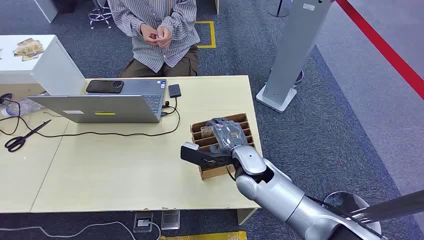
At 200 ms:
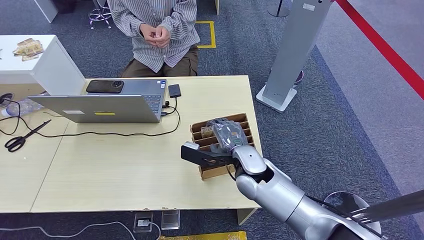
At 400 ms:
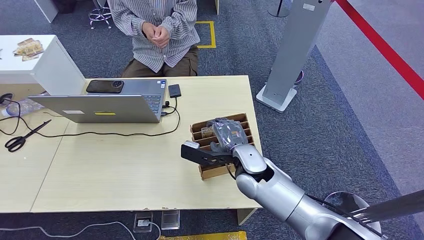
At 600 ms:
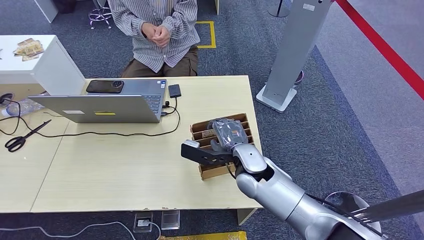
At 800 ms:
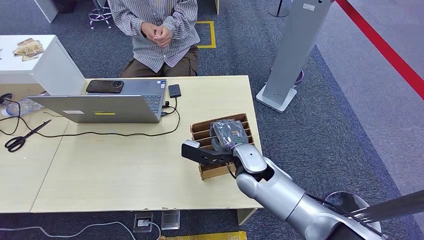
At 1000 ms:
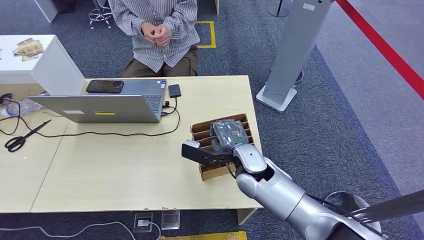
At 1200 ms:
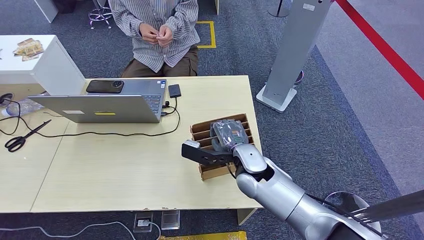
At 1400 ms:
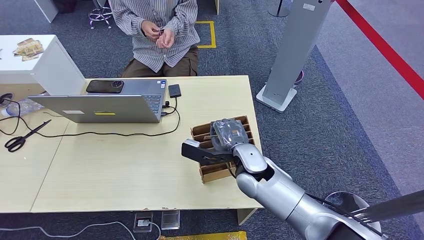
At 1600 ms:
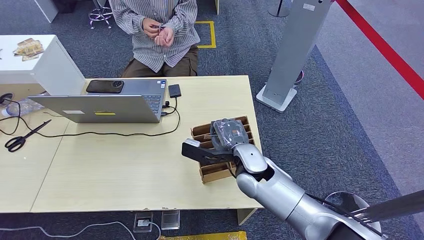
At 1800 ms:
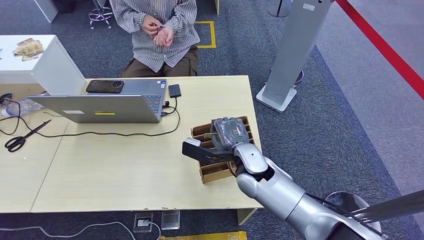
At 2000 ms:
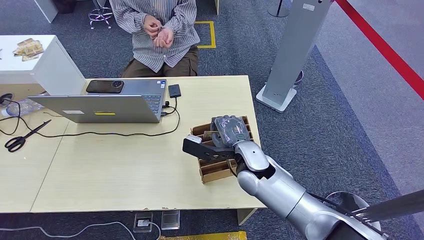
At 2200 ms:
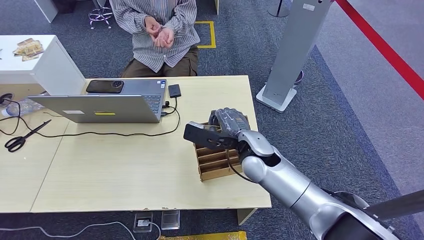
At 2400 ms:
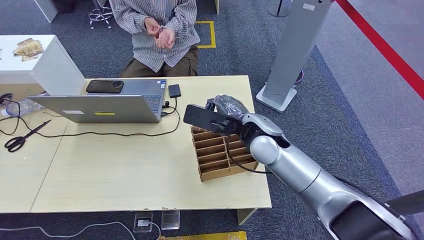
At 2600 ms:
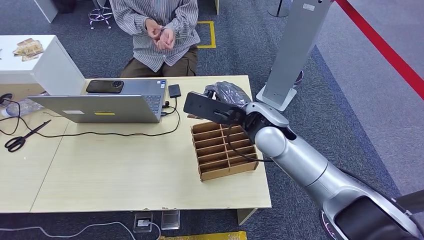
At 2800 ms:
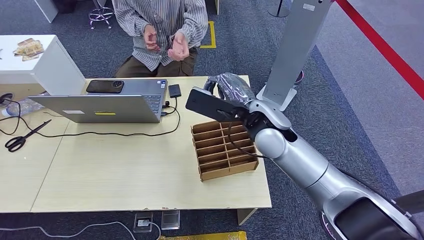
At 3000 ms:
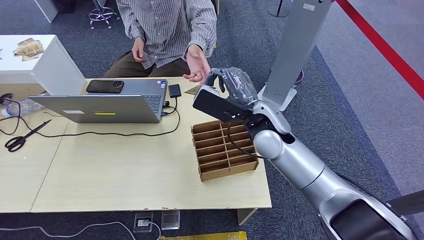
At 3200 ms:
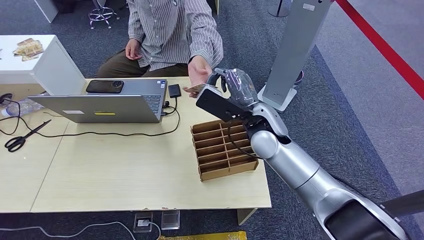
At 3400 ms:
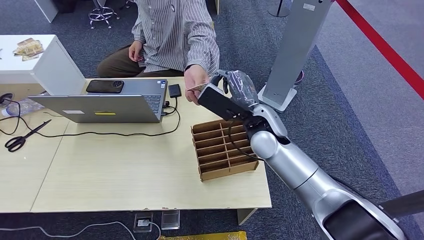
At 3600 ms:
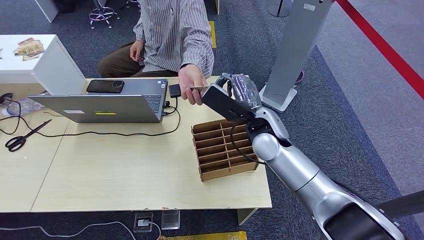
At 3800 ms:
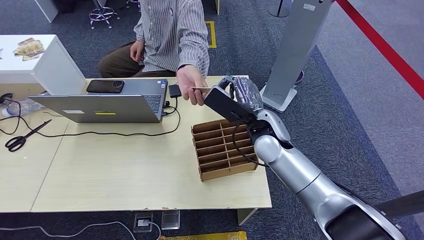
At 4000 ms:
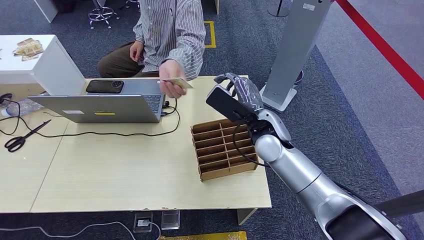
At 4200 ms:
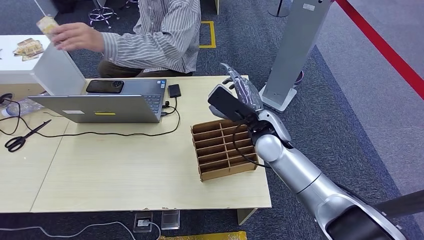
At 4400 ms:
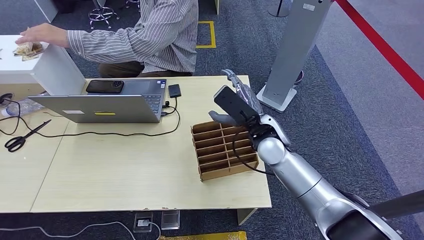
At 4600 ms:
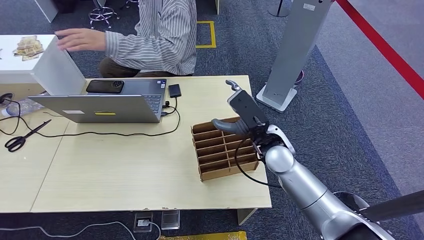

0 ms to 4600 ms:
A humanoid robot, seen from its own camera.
Step, 0 ms to 2400 ms: Pick up the room card from the card holder.
Step, 3400 ms to 4600 ms: Hand the room card to the target.
3000 ms to 4600 ms: The right hand travels backward and to the right by some 10 cm.

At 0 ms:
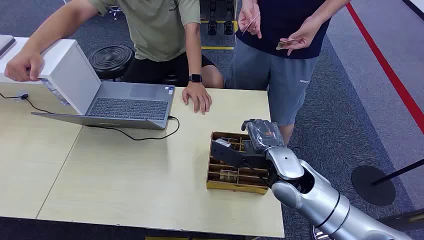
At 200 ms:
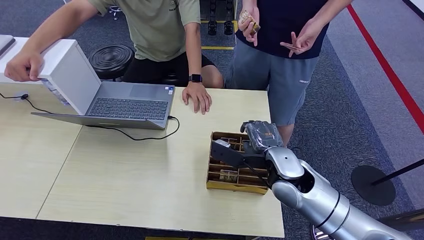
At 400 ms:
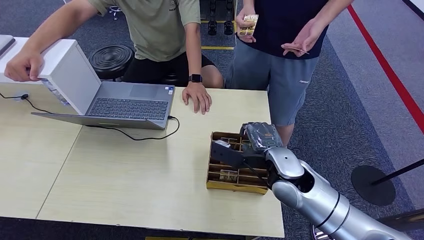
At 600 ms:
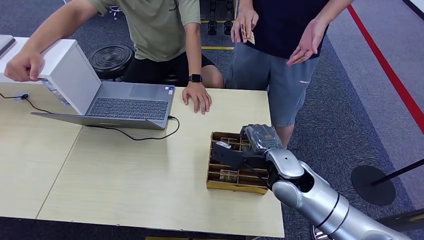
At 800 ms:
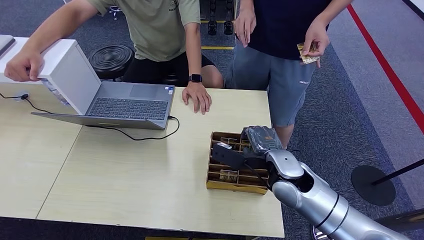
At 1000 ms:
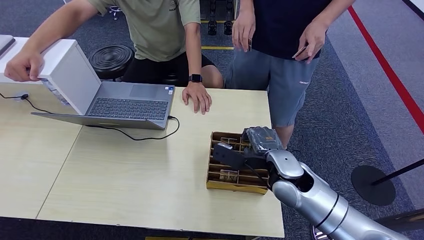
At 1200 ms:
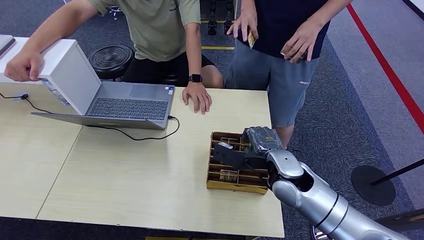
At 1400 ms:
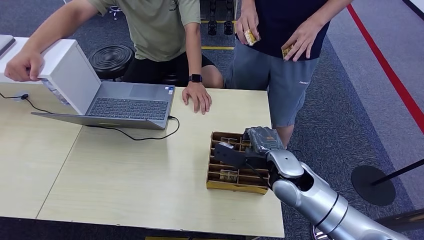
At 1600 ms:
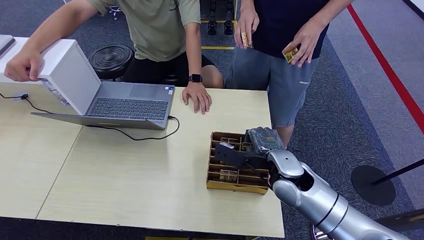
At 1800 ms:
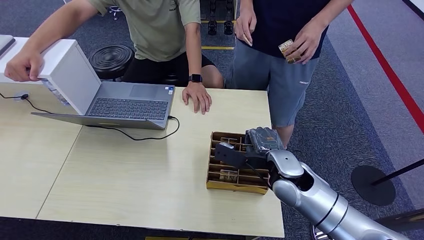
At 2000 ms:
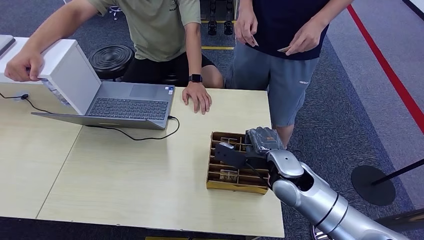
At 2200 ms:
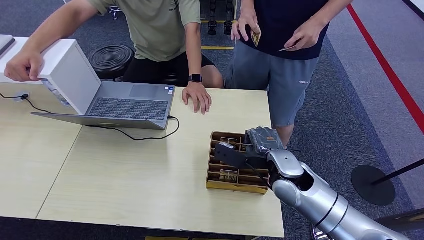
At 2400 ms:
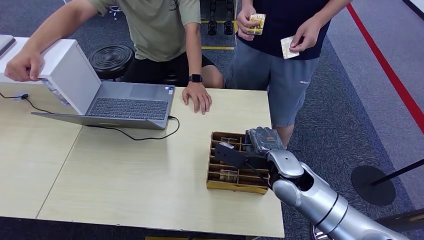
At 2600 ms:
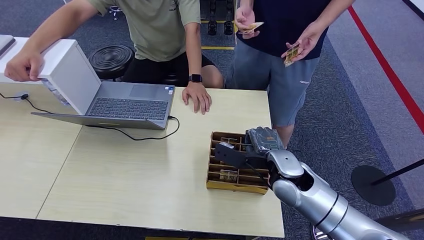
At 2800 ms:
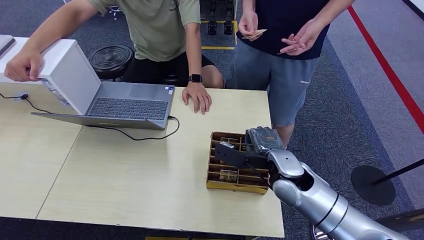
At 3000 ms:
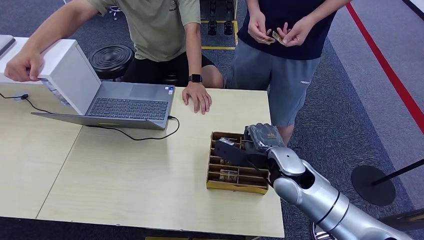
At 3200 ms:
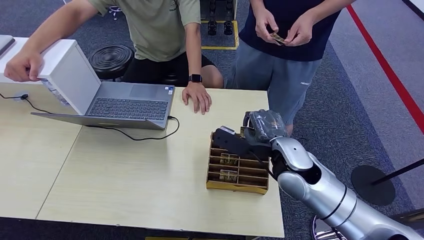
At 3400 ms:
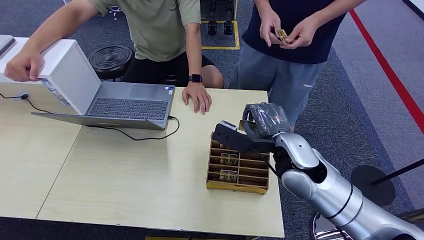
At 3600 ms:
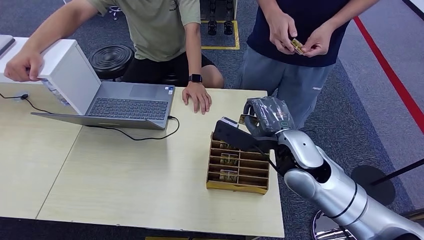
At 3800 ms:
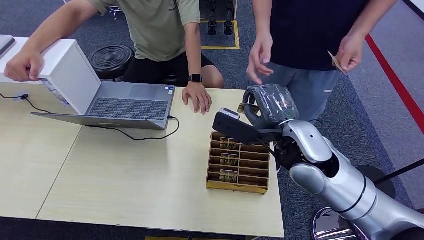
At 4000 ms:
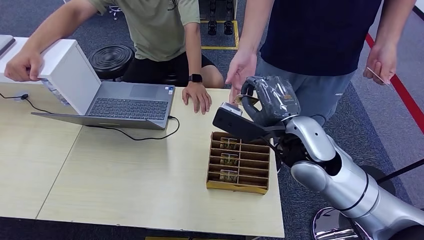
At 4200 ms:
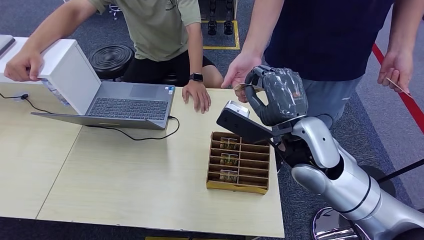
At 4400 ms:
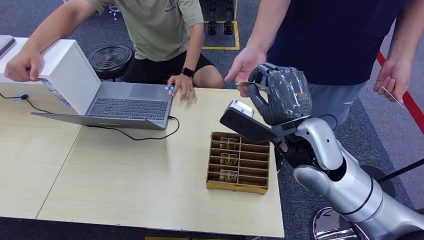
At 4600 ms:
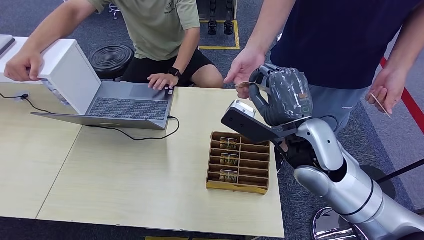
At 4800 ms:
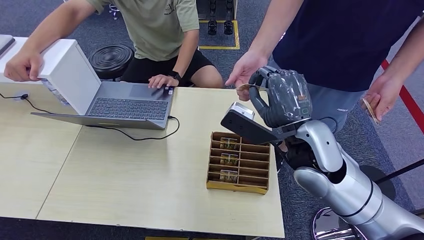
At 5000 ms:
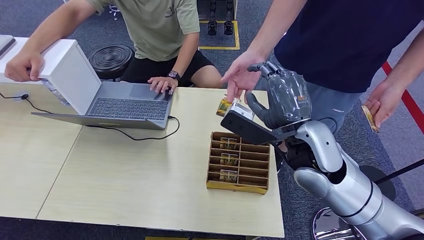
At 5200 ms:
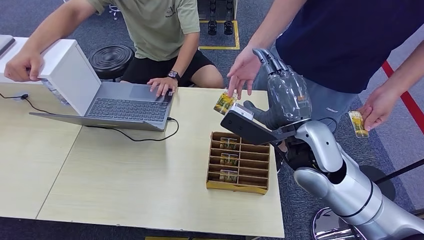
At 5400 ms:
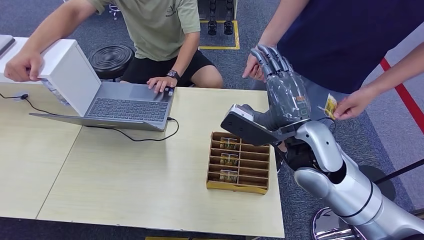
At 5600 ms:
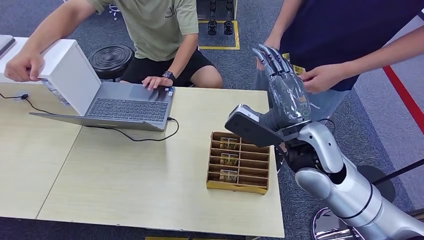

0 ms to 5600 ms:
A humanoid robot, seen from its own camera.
Step, 0 ms to 3200 ms: Pick up the room card from the card holder.
Step, 3400 ms to 5600 ms: Hand the room card to the target.
1400 ms to 2800 ms: The hands stay close to where they were, moving slightly.

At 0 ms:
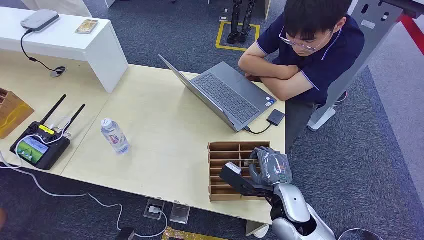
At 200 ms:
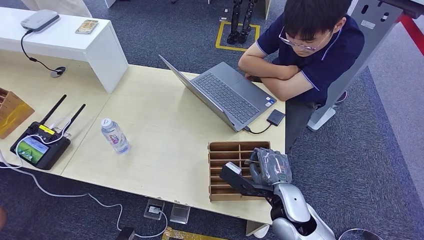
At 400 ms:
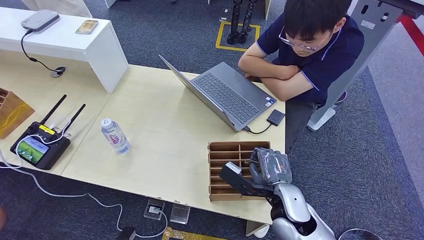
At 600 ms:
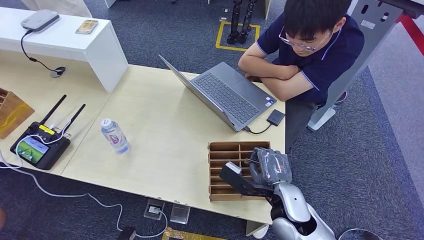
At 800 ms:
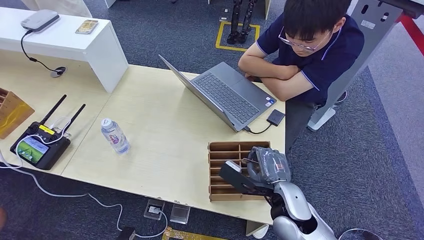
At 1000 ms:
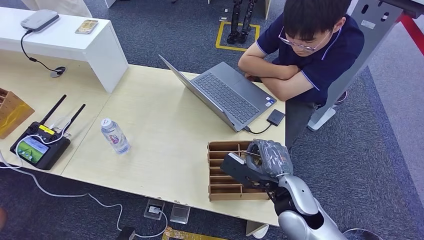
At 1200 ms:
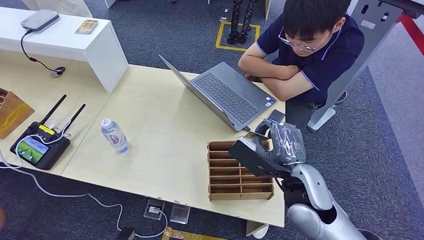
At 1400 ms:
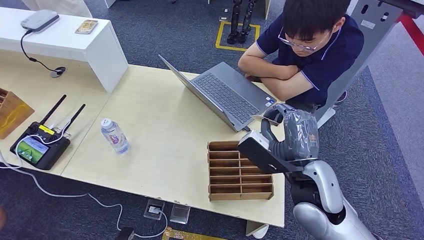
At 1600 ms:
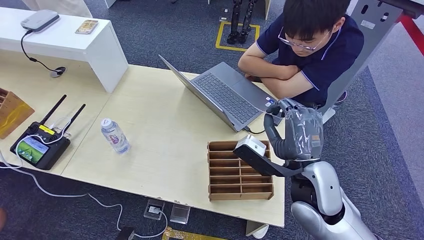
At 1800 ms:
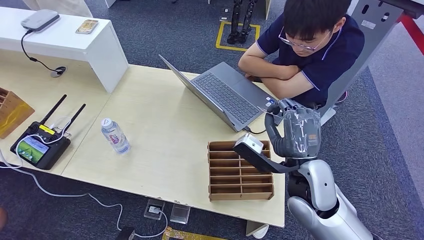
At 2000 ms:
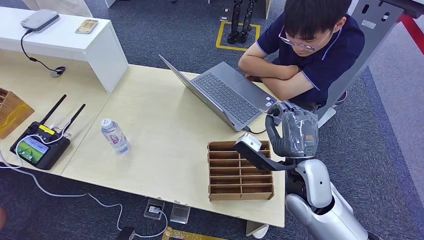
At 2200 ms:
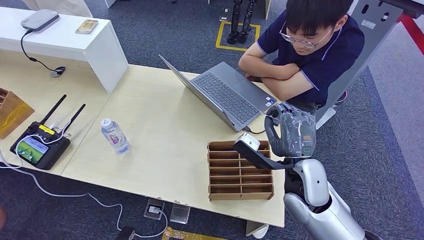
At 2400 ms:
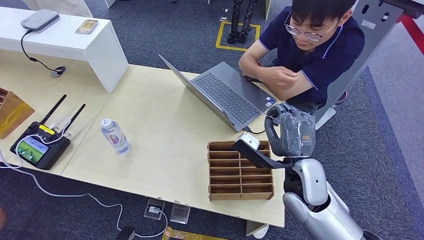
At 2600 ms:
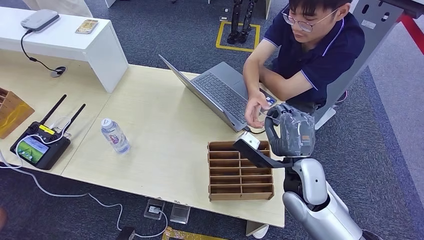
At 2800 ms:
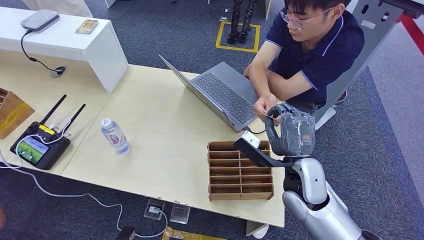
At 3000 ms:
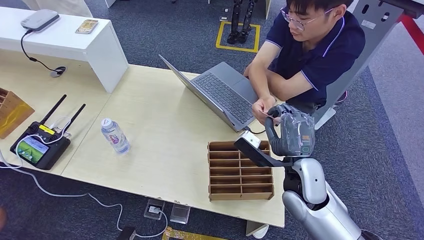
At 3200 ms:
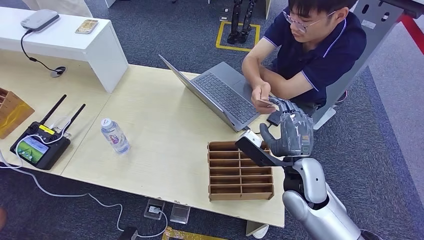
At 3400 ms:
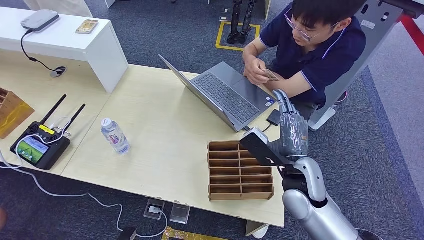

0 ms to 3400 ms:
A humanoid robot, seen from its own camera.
Step, 0 ms to 1200 ms: Pick up the room card from the card holder.
Step, 1600 ms to 3400 ms: Hand the room card to the target.

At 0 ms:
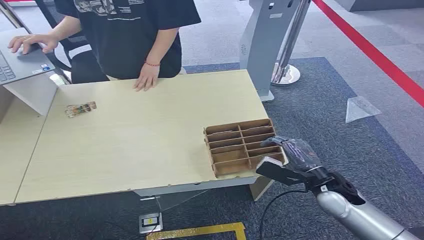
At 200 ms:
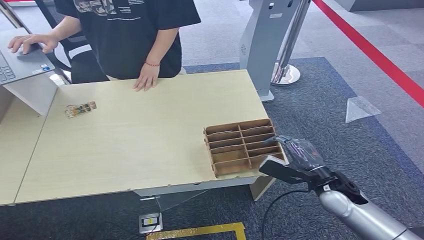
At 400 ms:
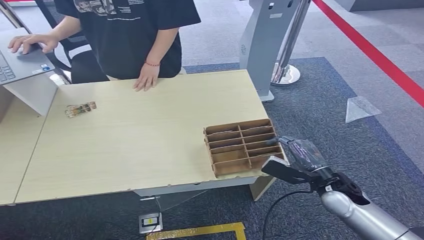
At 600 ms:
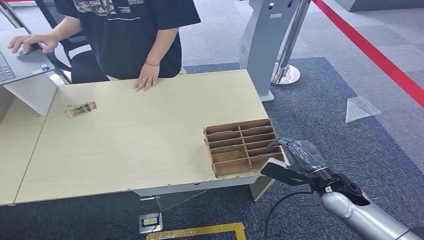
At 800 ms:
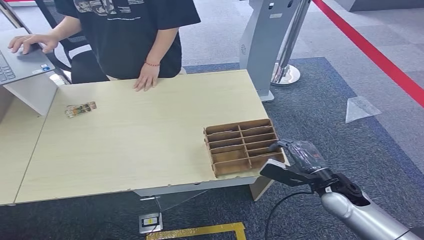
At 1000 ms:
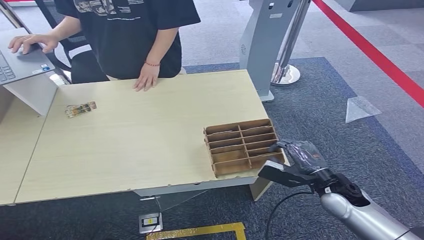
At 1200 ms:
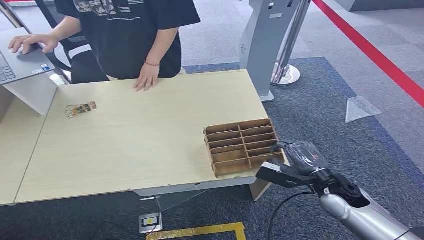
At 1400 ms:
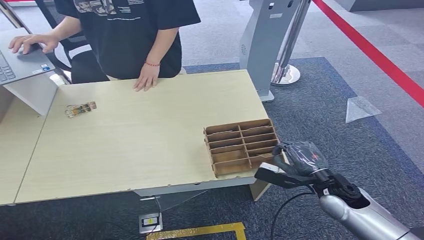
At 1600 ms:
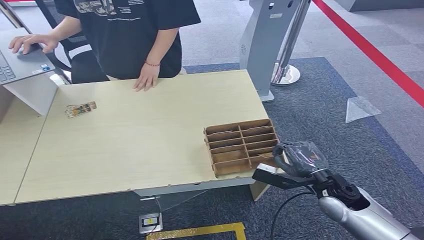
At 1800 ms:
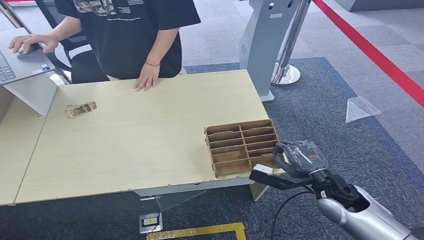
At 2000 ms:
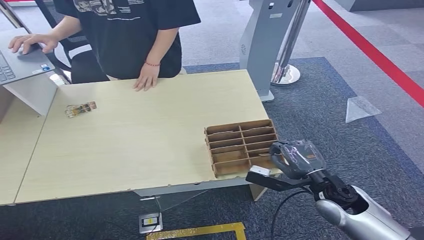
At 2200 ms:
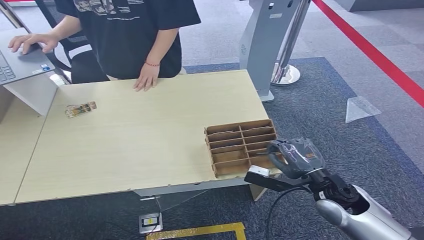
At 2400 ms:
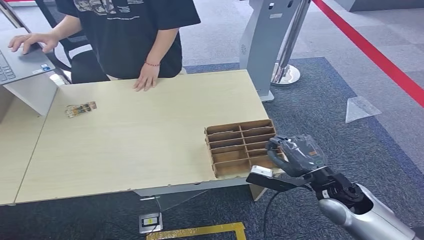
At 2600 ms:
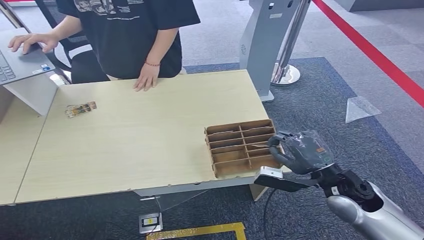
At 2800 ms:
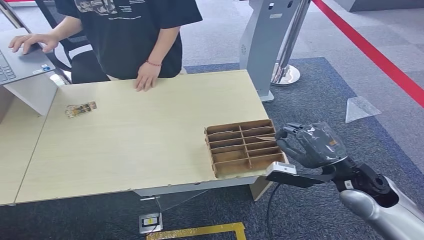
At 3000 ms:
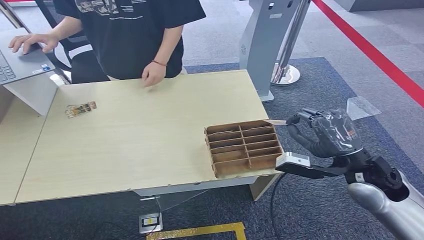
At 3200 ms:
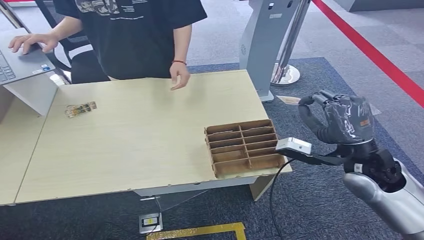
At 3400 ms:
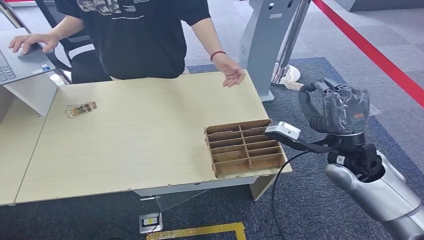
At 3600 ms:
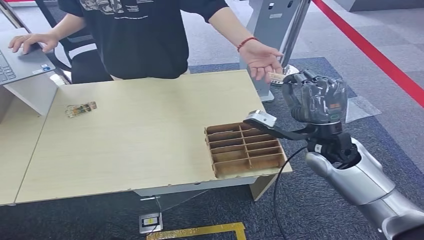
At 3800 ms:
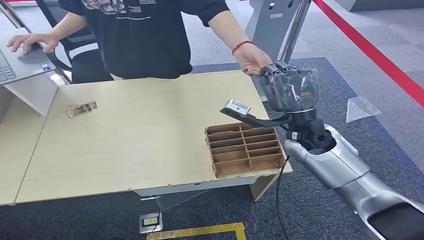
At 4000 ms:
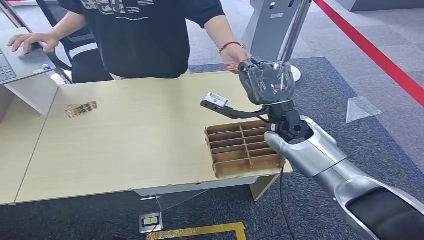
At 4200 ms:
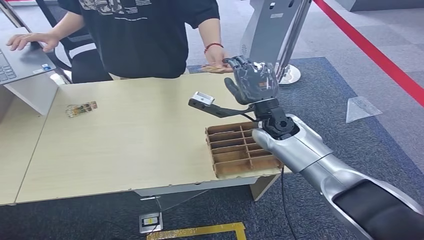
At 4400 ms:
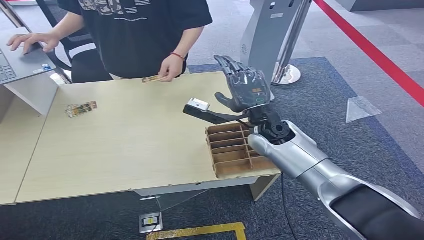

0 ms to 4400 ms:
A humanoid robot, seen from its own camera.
Step, 0 ms to 3000 ms: Pick up the room card from the card holder.
Step, 3200 ms to 4400 ms: Hand the room card to the target.
1400 ms to 3000 ms: The right hand heads upward, covering approximately 15 cm.
3000 ms to 4400 ms: The right hand moves to the left and forward, approximately 15 cm.
